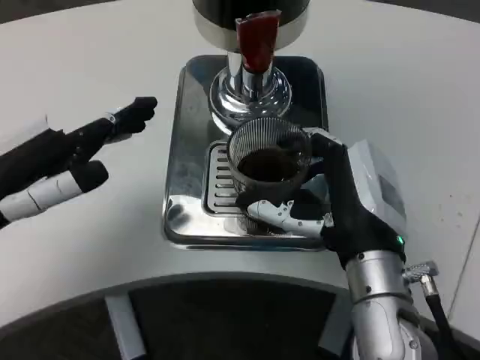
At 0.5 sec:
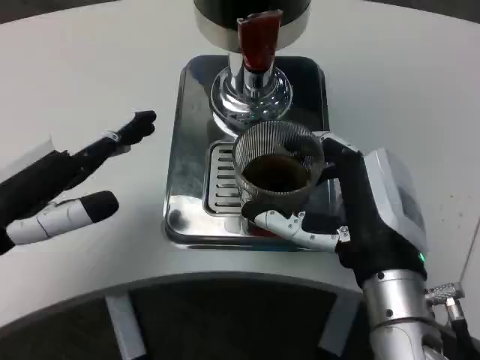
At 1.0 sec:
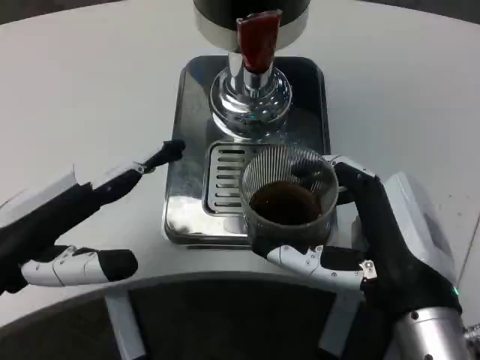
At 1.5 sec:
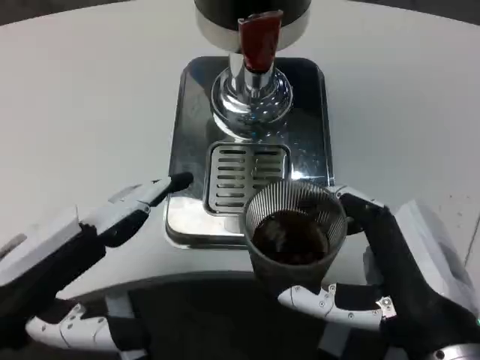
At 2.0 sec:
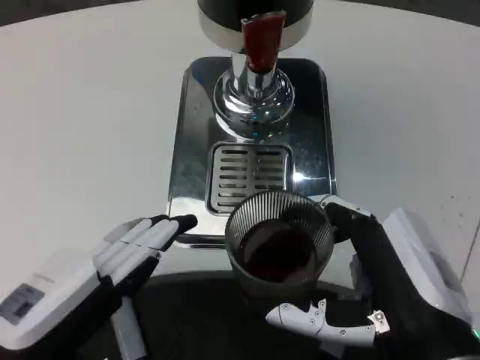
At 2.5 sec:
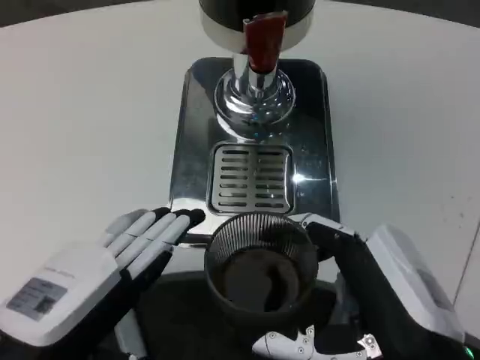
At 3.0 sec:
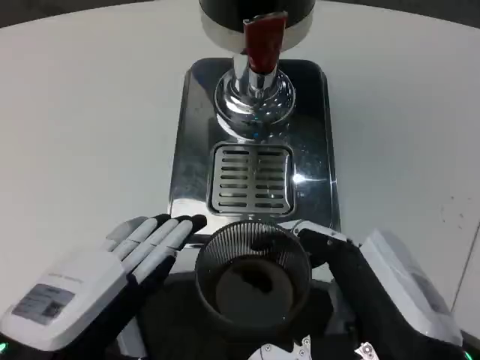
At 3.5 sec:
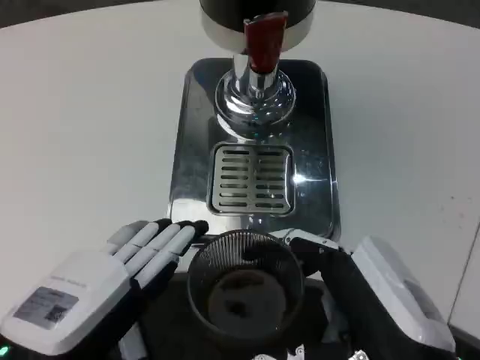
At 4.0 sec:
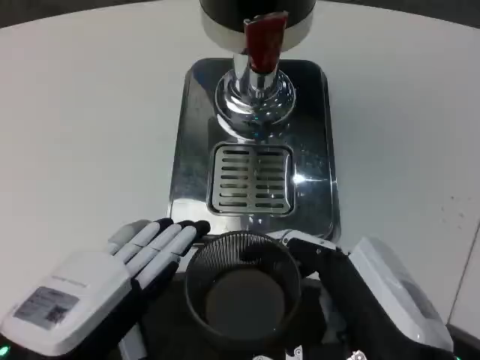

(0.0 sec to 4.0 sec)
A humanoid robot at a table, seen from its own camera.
Task of the whole recording: Grasp the cup under the faucet to collect the drink, then remove the cup.
0.0 sec - 2.0 sec: The right hand heads backward, covering roughly 10 cm. The left hand moves backward, downward and to the right, some 15 cm.

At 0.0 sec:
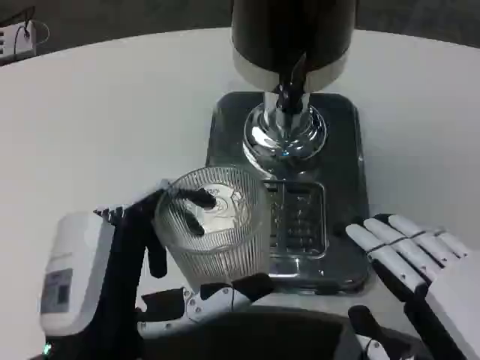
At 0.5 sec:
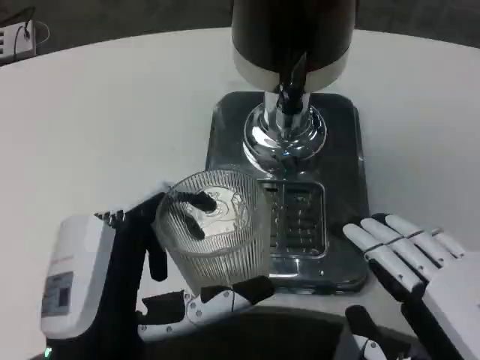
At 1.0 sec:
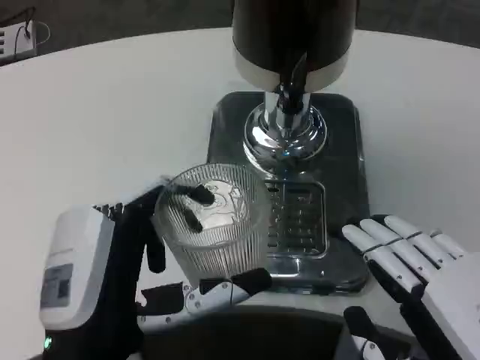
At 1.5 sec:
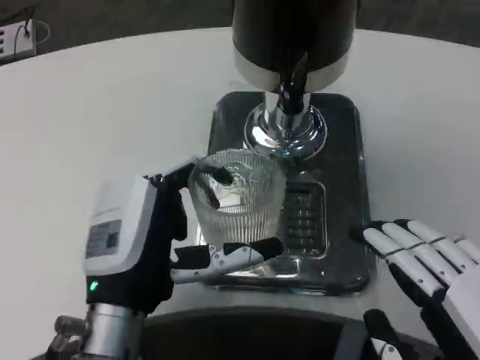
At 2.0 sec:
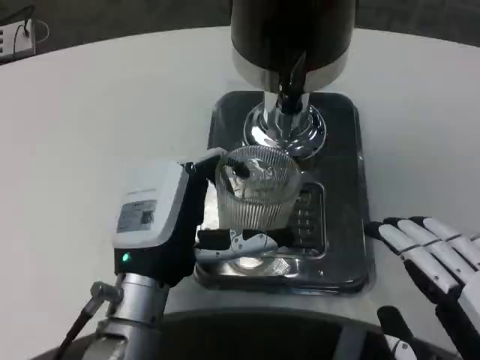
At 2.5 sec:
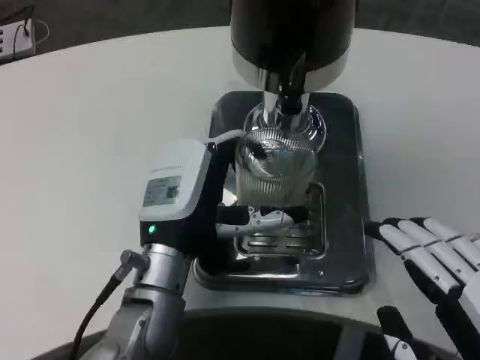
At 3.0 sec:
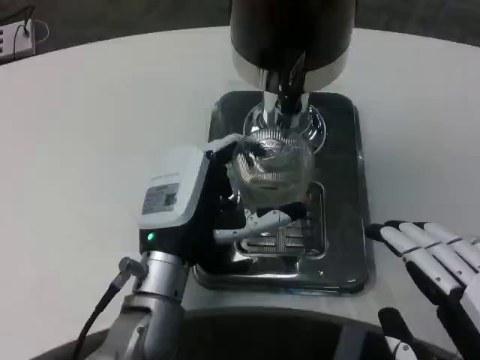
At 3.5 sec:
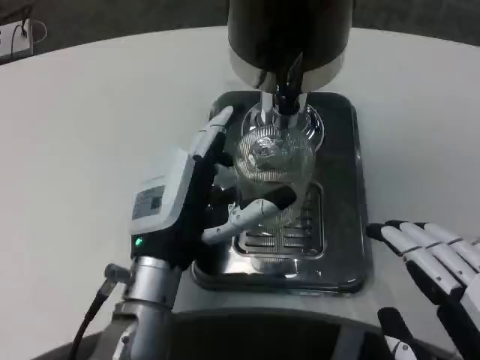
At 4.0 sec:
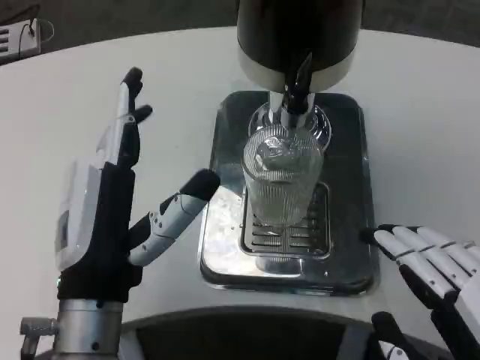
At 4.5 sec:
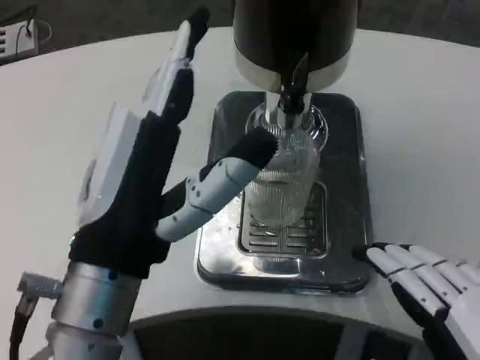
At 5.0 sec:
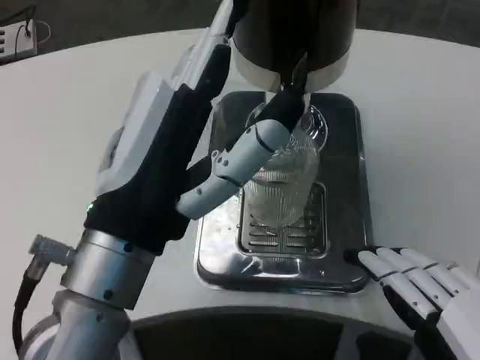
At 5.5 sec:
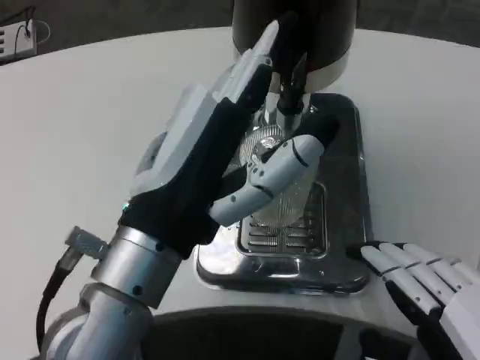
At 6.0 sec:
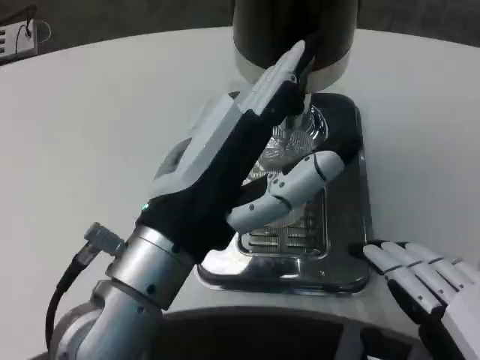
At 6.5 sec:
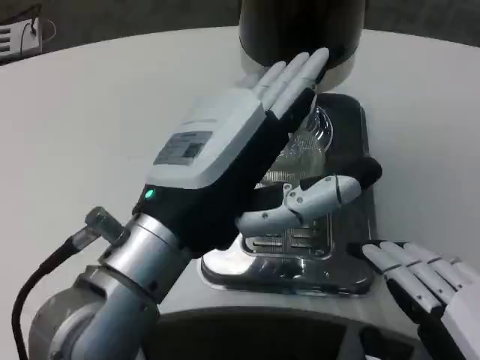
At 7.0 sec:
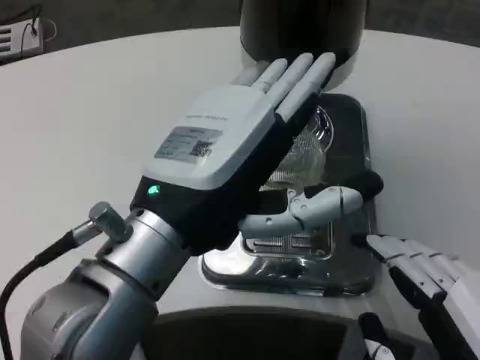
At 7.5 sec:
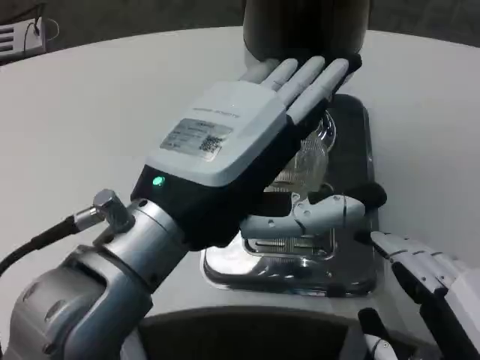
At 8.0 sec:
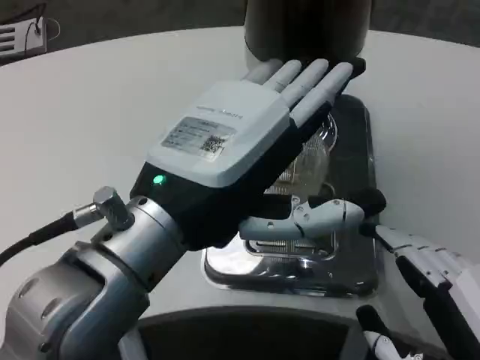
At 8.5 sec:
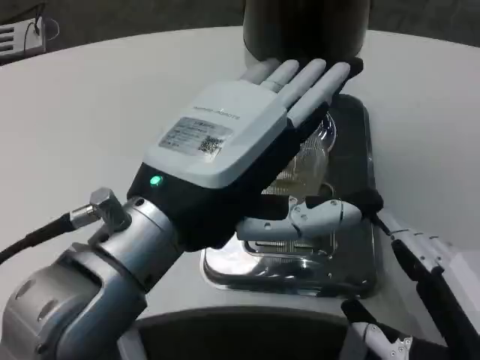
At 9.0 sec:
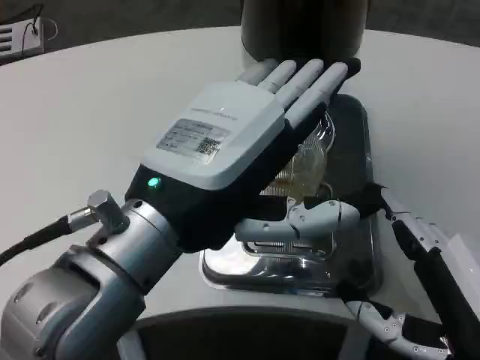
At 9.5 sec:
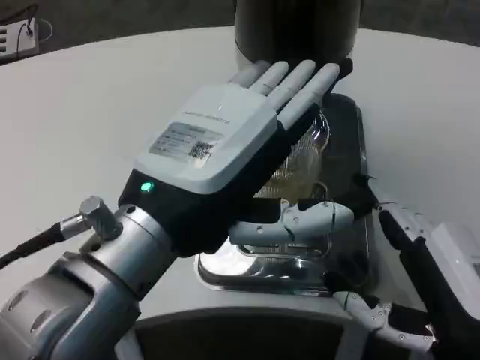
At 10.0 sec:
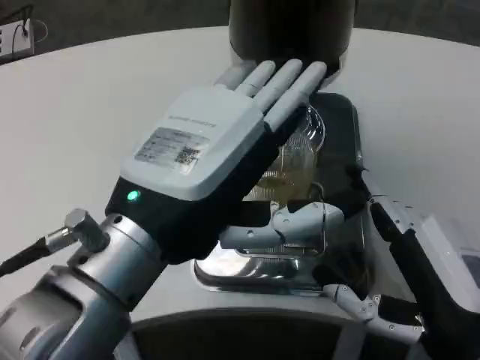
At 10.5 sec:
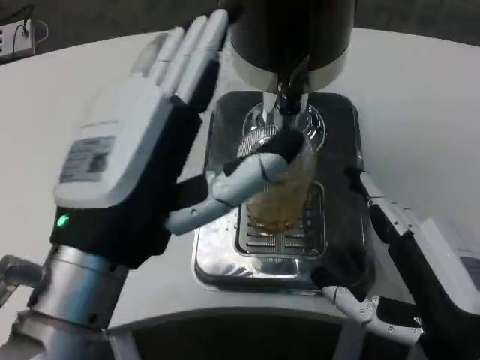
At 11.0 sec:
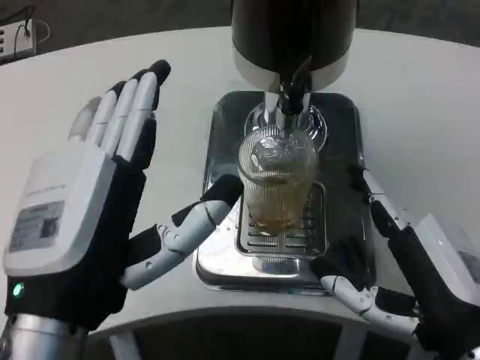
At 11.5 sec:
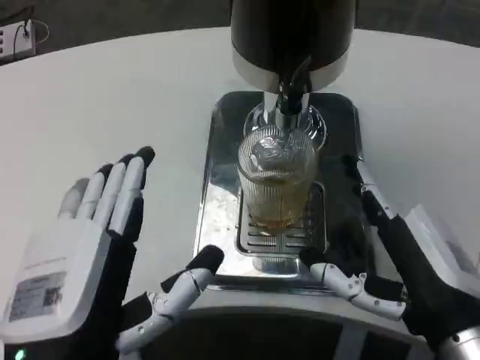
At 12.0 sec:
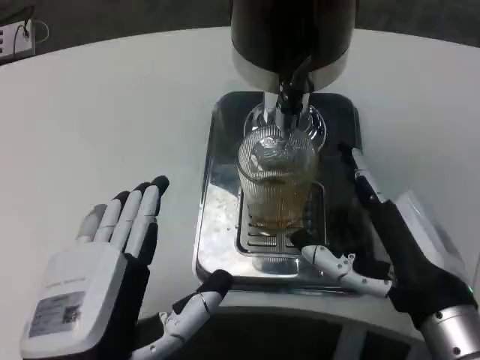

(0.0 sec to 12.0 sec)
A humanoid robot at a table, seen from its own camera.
Task of the whole recording: Grasp the cup under the faucet to collect the drink, then remove the cup.
0.0 sec - 2.0 sec: The left hand moves forward, approximately 10 cm.
2.0 sec - 4.0 sec: The left hand ends up roughly 5 cm from where it was.
4.0 sec - 6.0 sec: The left hand travels upward by approximately 10 cm.
8.0 sec - 10.0 sec: The right hand goes approximately 5 cm forward.
10.0 sec - 12.0 sec: The right hand changes place by roughly 5 cm; the left hand is displaced downward by about 10 cm.

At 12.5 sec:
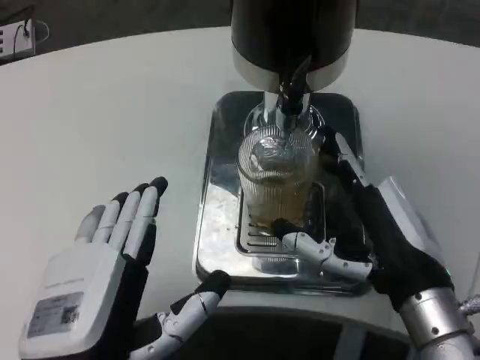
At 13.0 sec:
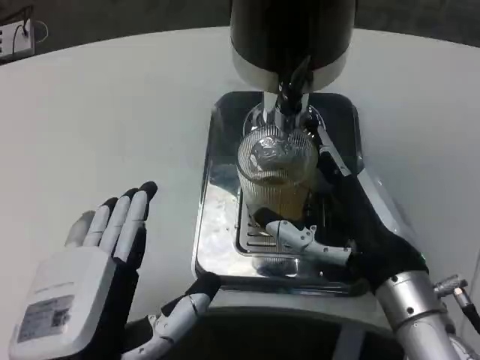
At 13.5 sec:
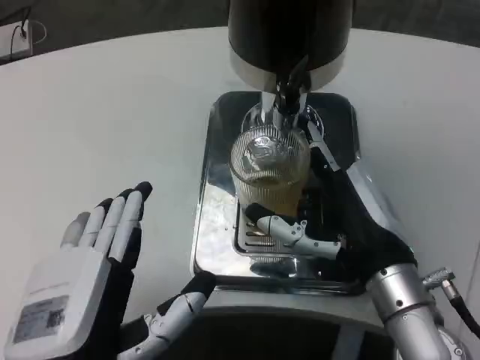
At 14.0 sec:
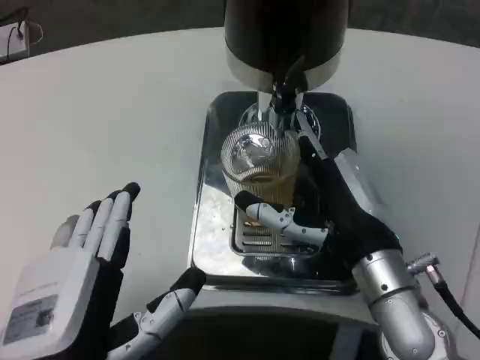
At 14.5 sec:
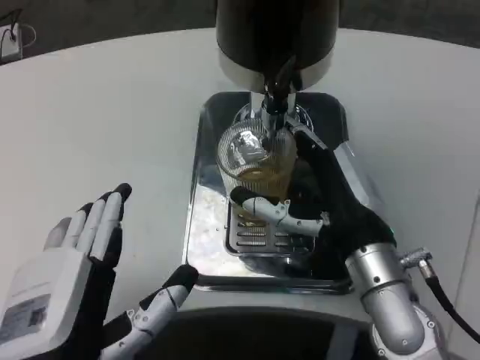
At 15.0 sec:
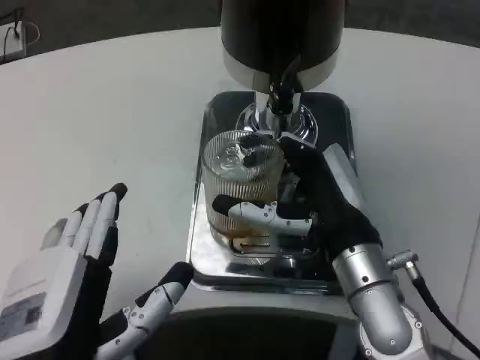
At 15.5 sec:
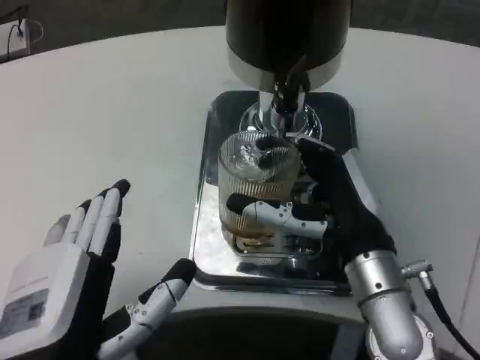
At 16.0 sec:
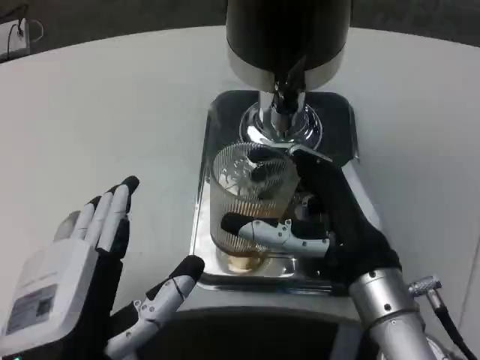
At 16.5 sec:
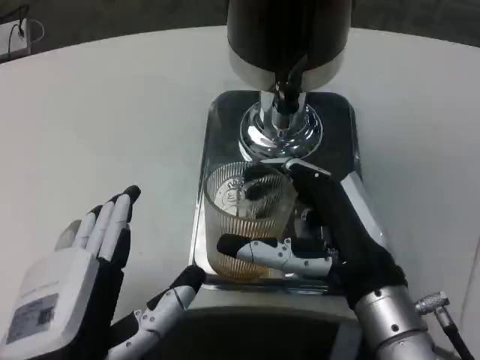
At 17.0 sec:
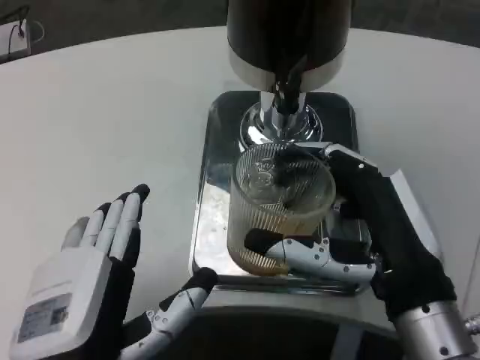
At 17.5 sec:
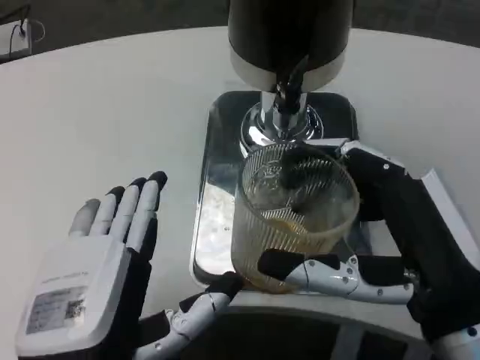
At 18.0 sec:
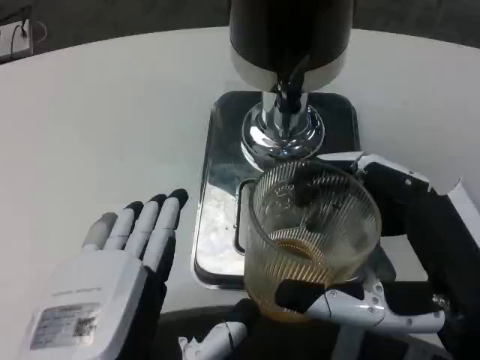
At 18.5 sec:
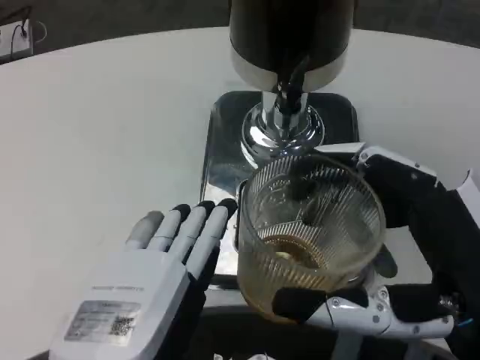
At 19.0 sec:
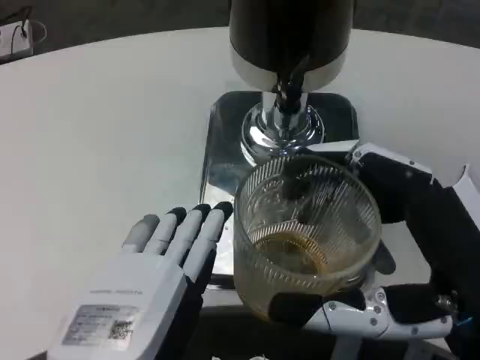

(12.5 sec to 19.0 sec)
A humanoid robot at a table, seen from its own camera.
Task of the whole recording: Grasp the cup under the faucet to collect the drink, then remove the cup.
12.5 sec - 14.5 sec: The right hand shifts by some 5 cm.
14.5 sec - 17.0 sec: The right hand moves backward, roughly 10 cm.
17.0 sec - 19.0 sec: The right hand moves backward, about 5 cm, while the left hand changes place by roughly 5 cm.

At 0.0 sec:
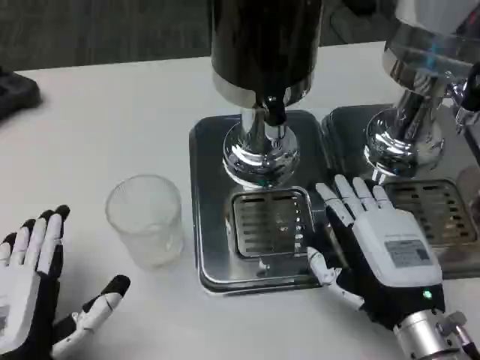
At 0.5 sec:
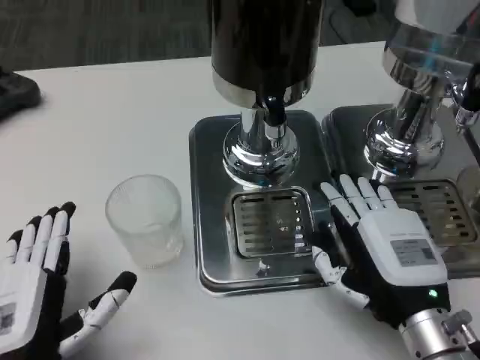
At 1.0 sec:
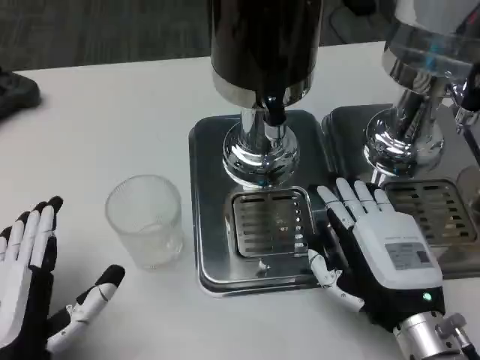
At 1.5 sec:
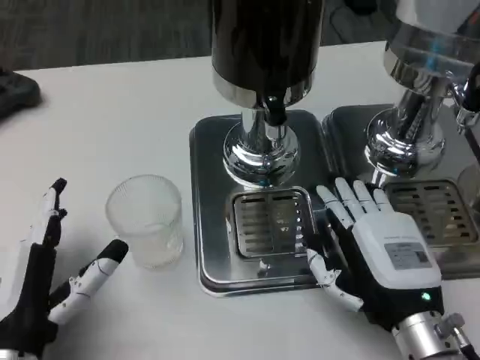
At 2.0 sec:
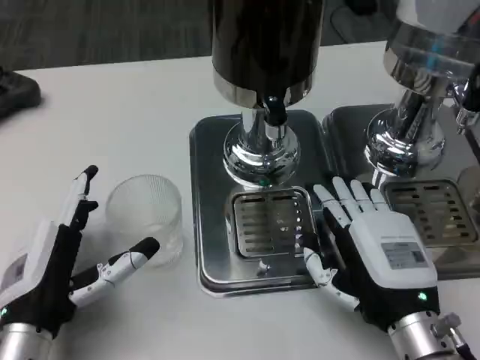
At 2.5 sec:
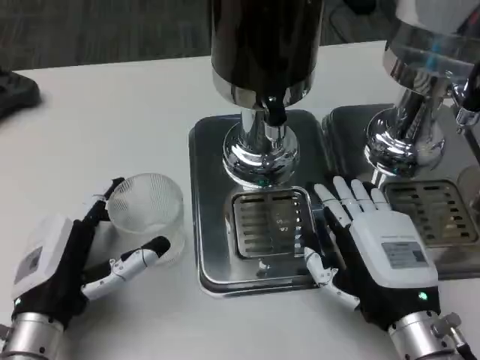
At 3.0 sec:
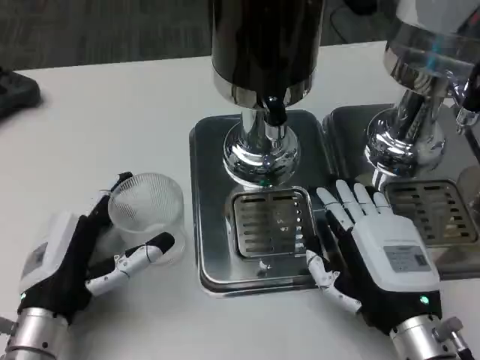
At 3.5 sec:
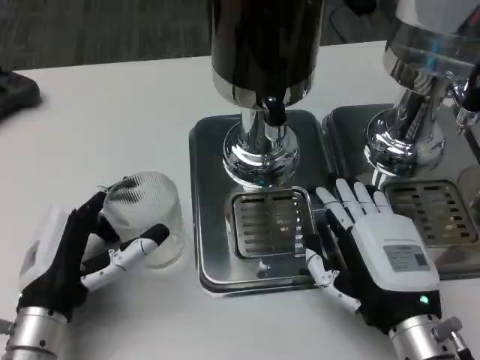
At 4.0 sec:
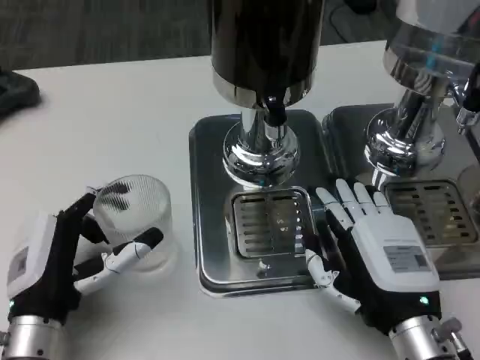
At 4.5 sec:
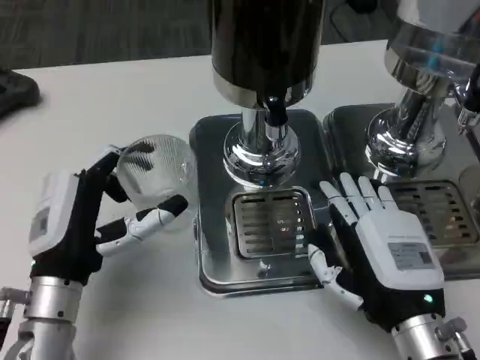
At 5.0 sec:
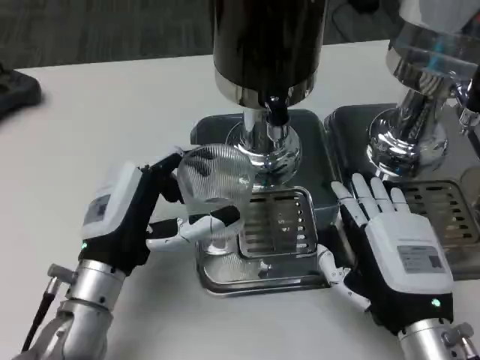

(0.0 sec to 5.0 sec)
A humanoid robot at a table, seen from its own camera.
Task of the whole recording: Grasp the cup under the faucet to collect the drink, then remove the cup.
0.0 sec - 2.5 sec: The left hand goes about 5 cm forward.
2.5 sec - 5.0 sec: The left hand heads forward, covering about 5 cm.
